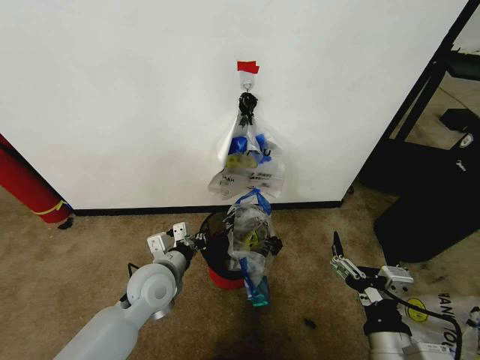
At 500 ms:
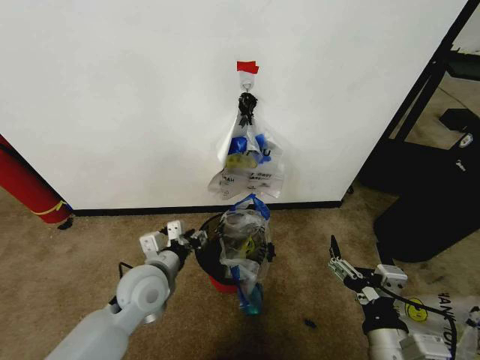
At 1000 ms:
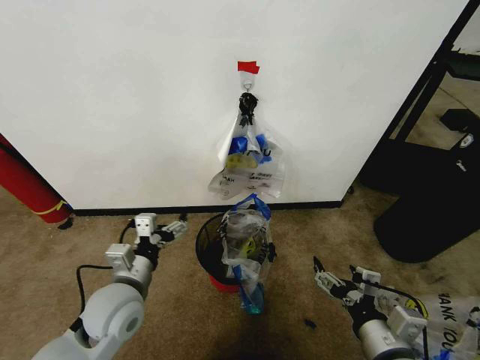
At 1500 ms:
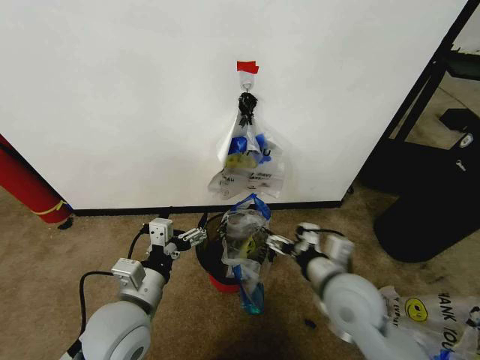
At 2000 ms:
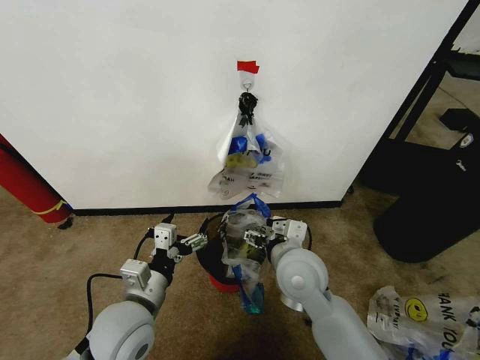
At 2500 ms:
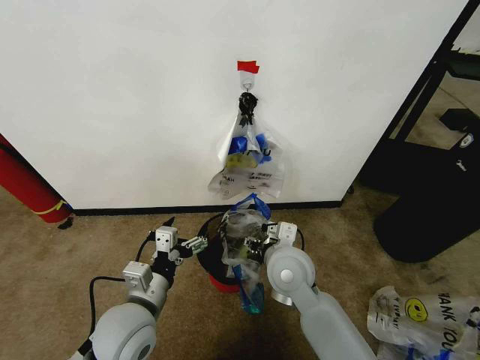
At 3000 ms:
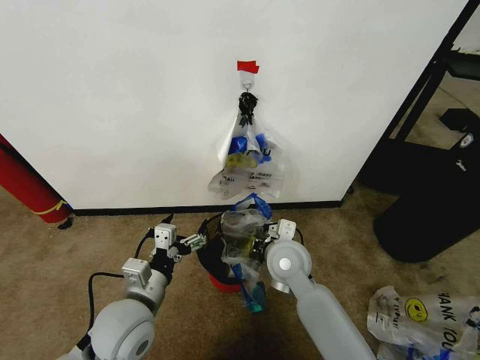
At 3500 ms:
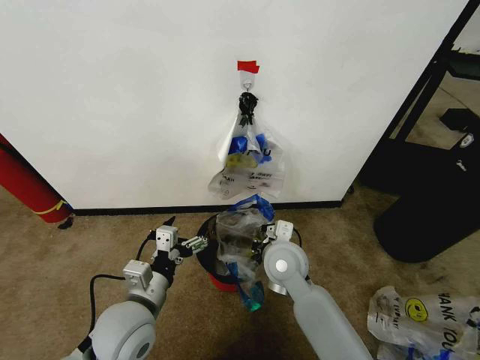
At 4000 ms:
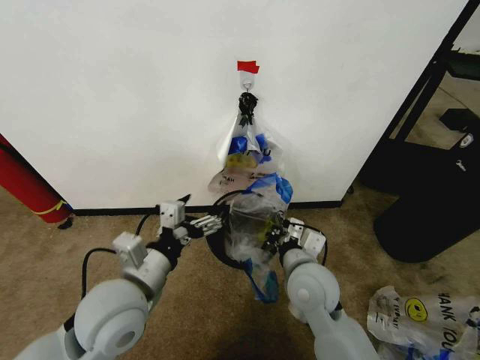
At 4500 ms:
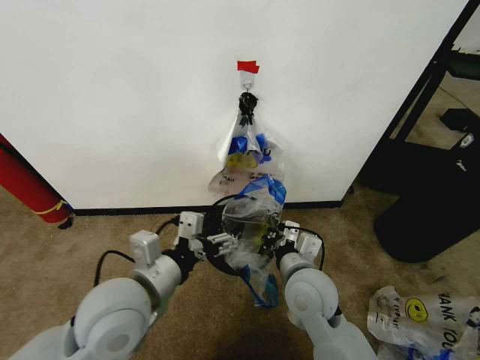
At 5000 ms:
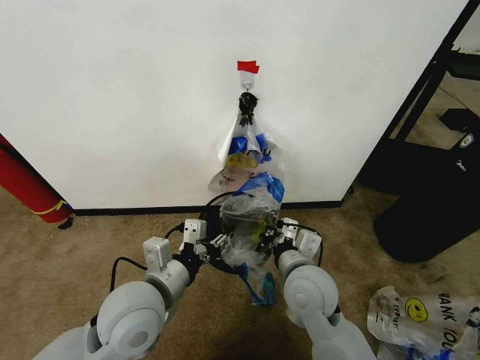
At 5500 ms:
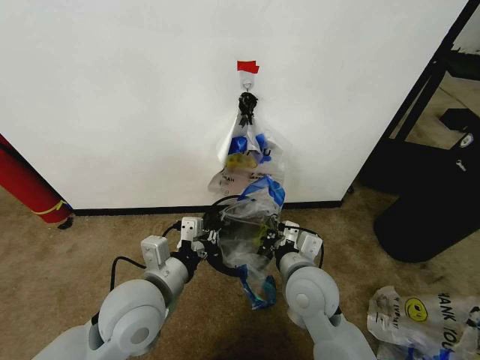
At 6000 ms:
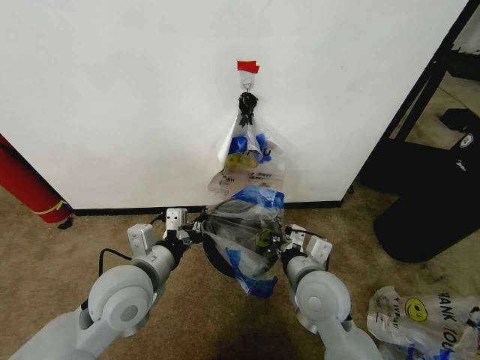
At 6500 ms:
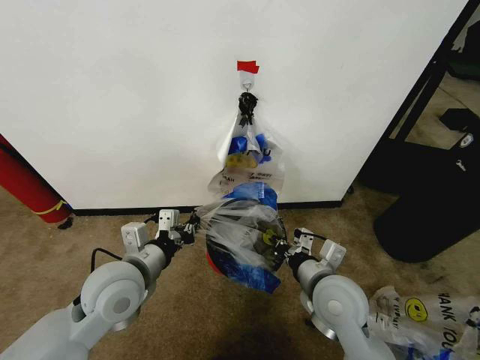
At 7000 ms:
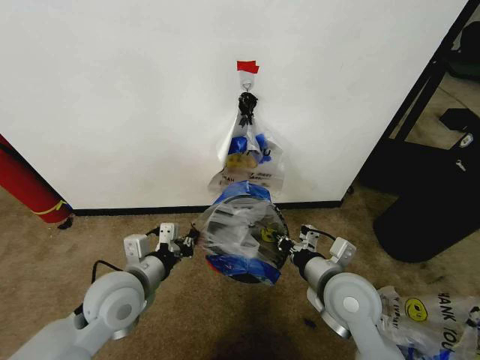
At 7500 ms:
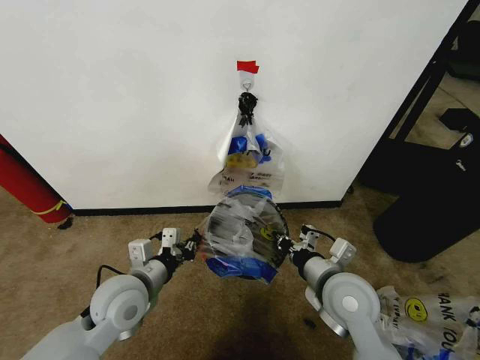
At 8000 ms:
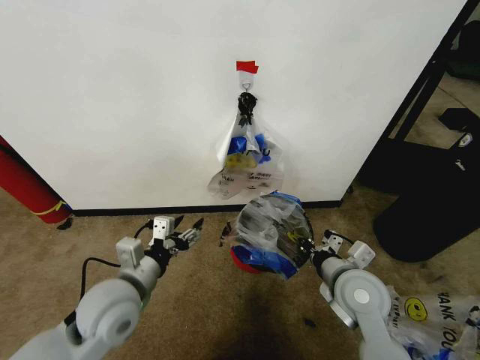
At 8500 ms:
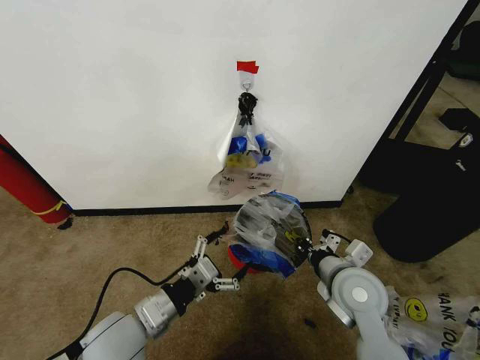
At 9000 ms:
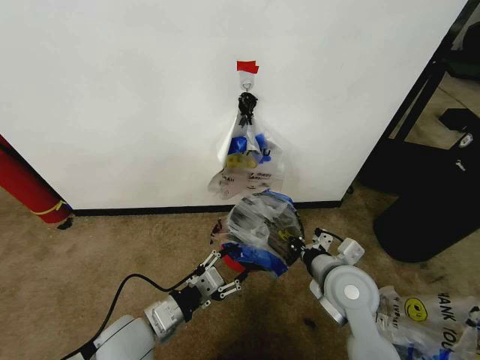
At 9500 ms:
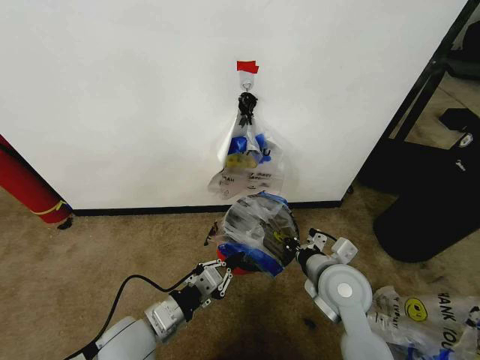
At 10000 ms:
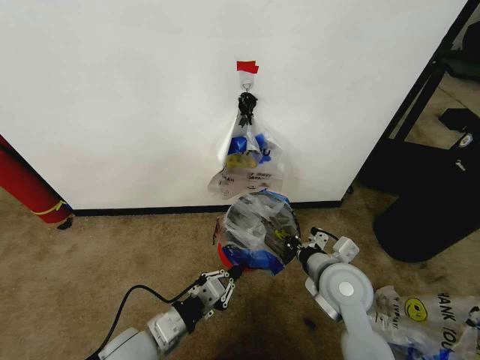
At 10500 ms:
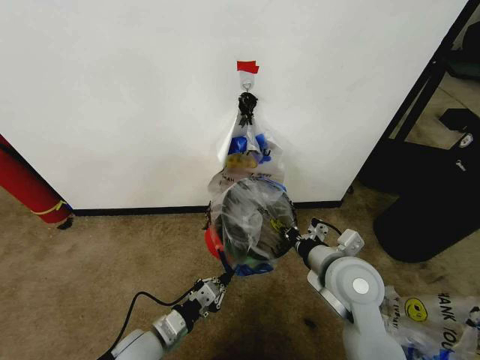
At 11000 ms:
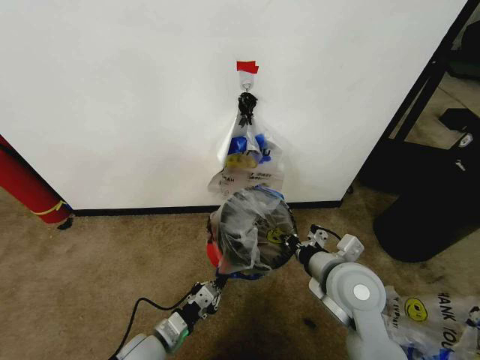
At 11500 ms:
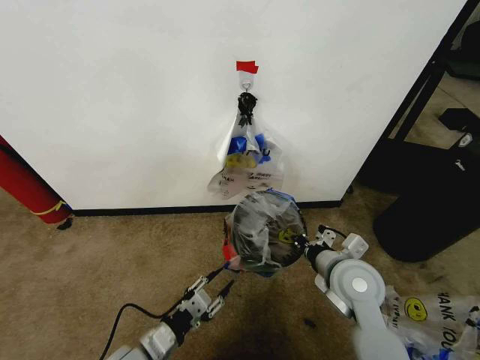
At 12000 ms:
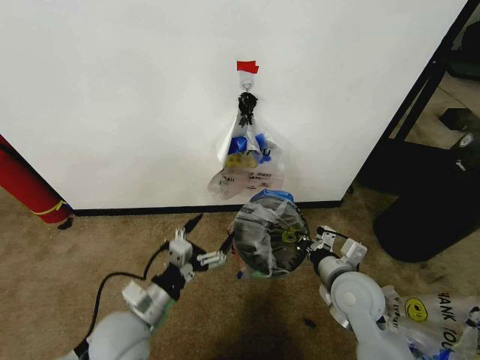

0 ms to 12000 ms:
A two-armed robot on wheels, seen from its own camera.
Task of the whole recording: Pick up the garbage bag from the wall and place it over the trash bin.
0 ms to 2000 ms: The left gripper heads backward, covering roughly 10 cm, and opens its fingers. The right gripper travels forward and to the left by approximately 25 cm.
2000 ms to 4000 ms: The left gripper shifts some 5 cm upward; the right gripper closes.
4000 ms to 6000 ms: The left gripper closes.
6000 ms to 8000 ms: The right gripper travels to the right by about 5 cm. The left gripper opens its fingers.
8000 ms to 10000 ms: The left gripper goes some 10 cm downward and backward, and closes up.
10000 ms to 12000 ms: The left gripper goes downward and returns, approximately 10 cm each way, and opens up.

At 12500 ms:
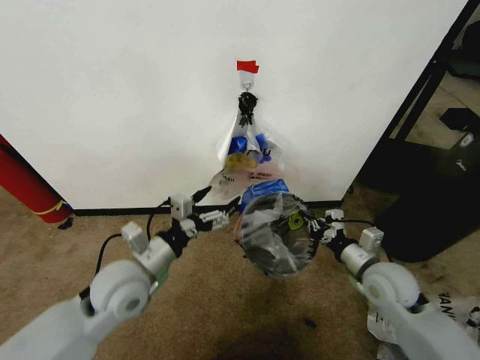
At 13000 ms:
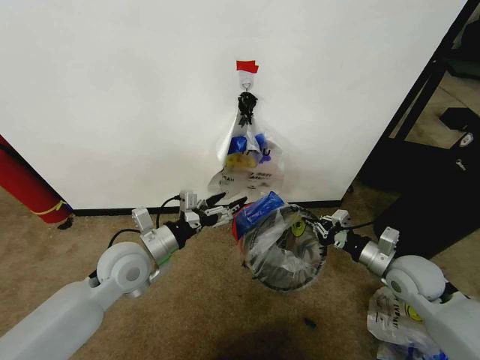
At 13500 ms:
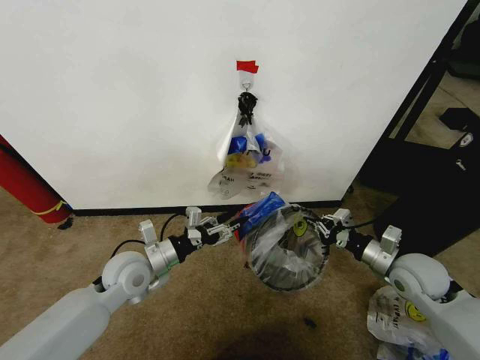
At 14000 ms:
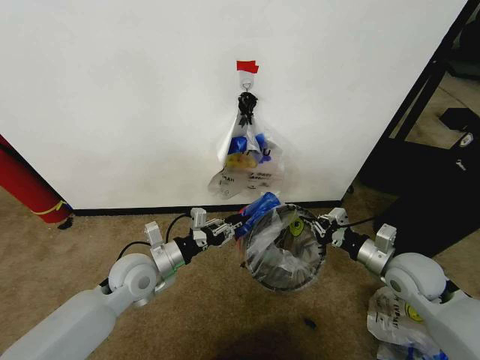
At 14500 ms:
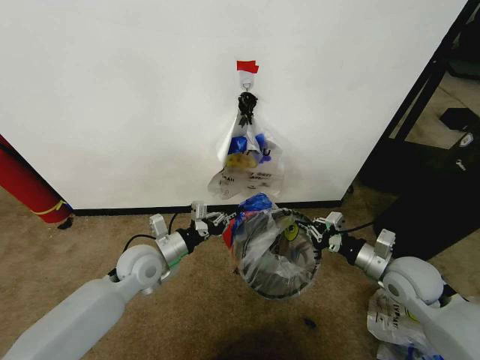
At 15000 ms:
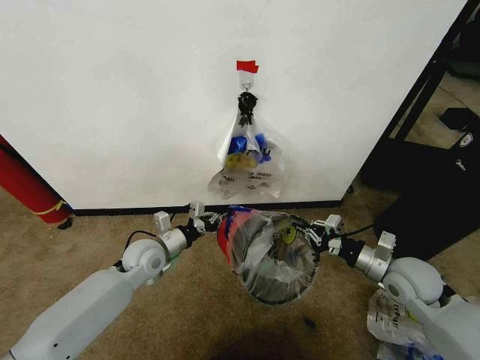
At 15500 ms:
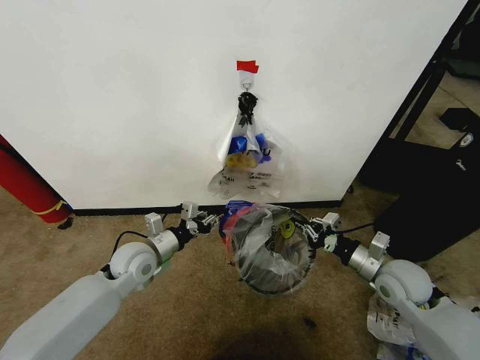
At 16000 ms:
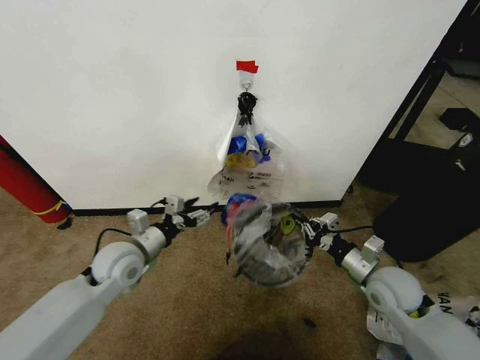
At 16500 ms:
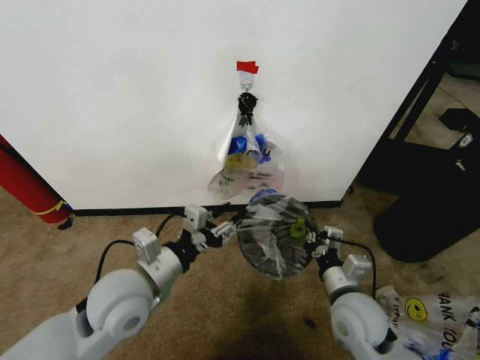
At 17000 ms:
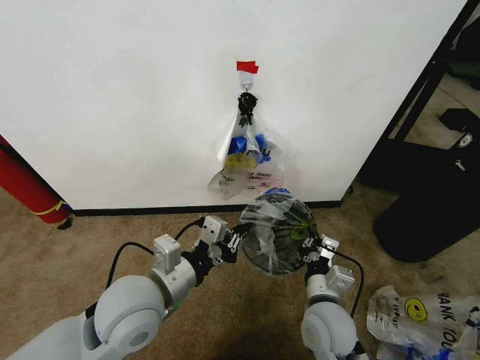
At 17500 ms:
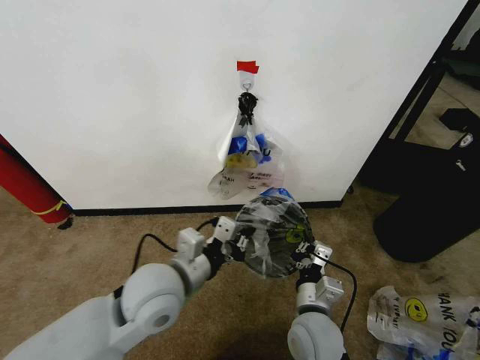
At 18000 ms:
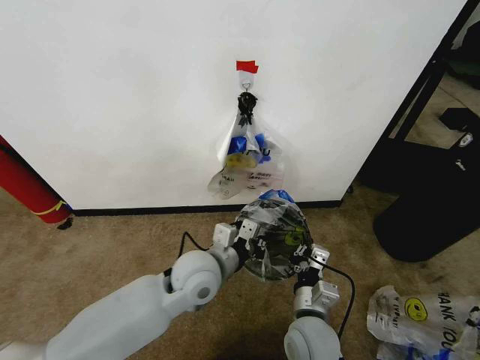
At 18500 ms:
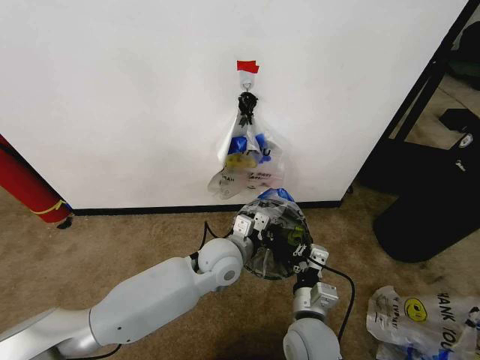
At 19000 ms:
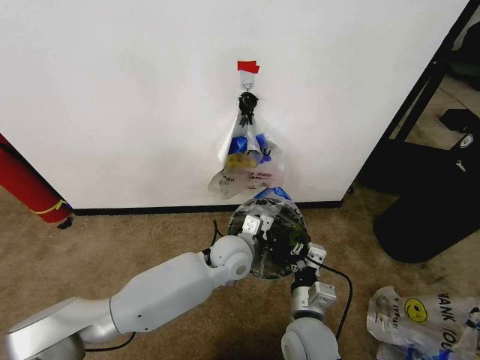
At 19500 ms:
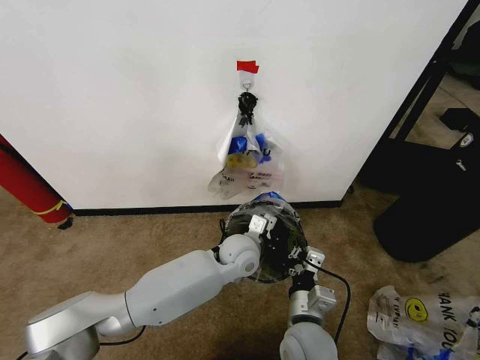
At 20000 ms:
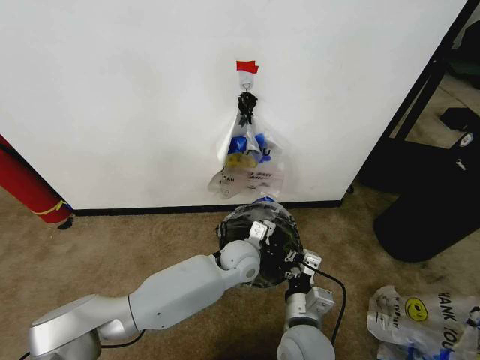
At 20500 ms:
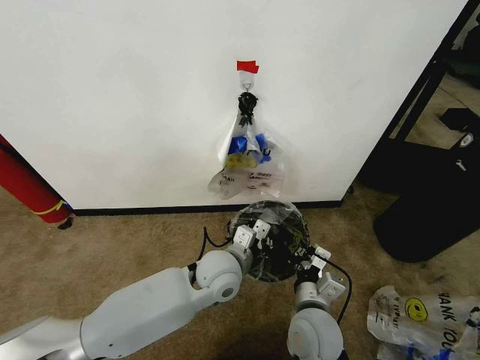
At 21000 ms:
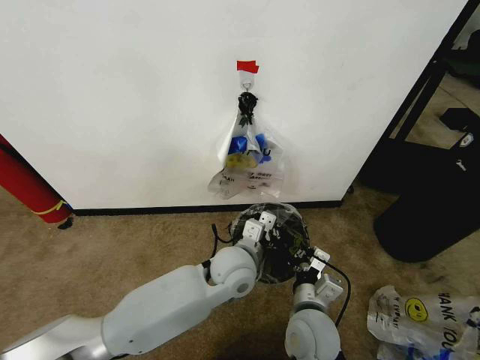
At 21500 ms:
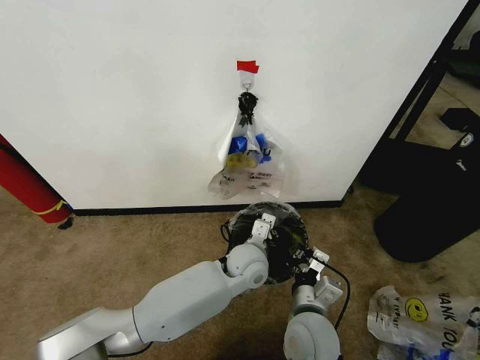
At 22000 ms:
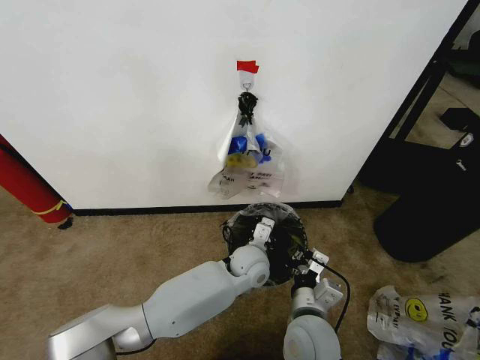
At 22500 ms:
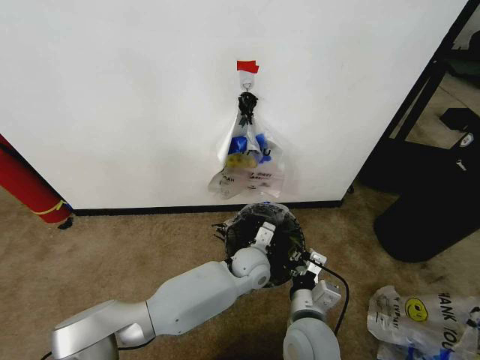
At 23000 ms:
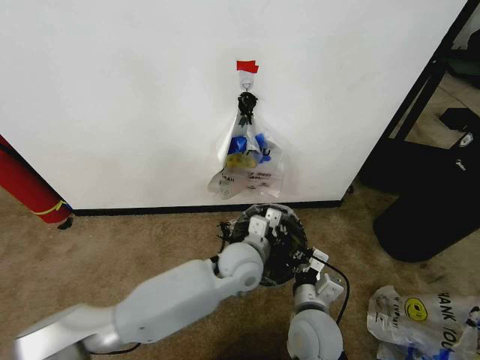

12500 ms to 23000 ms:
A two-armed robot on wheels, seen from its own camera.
Task of the whole recording: Pick up the garbage bag from the wall and place it over the trash bin.
12500 ms to 14500 ms: The left gripper heads forward and downward, covering roughly 10 cm, and closes up.
14500 ms to 16500 ms: The left gripper goes some 15 cm backward and upward, and opens its fingers, while the right gripper is displaced to the left and backward by about 15 cm.
16500 ms to 19000 ms: The left gripper goes some 25 cm to the right, forward and downward, and closes, while the right gripper goes about 10 cm to the left.
21000 ms to 23000 ms: The left gripper reaches about 10 cm downward, then returns.

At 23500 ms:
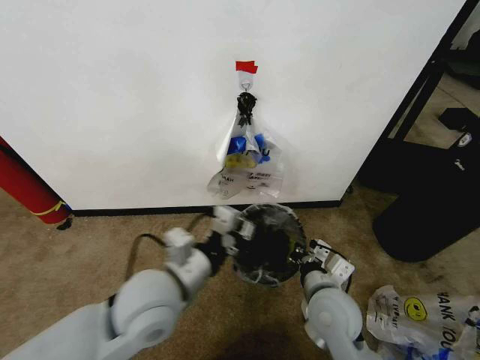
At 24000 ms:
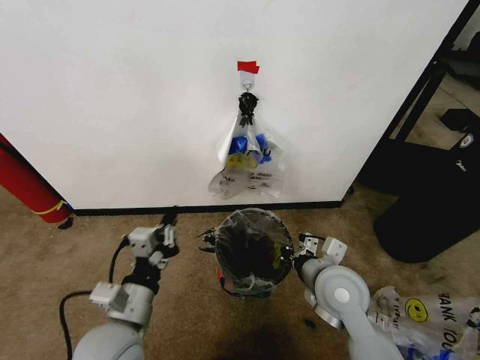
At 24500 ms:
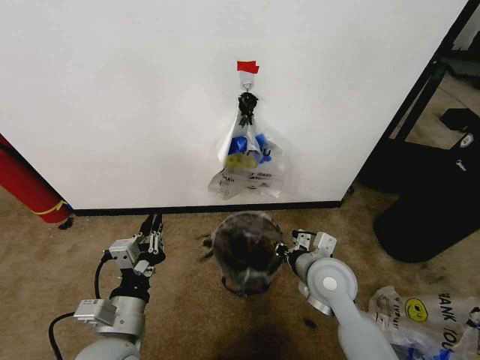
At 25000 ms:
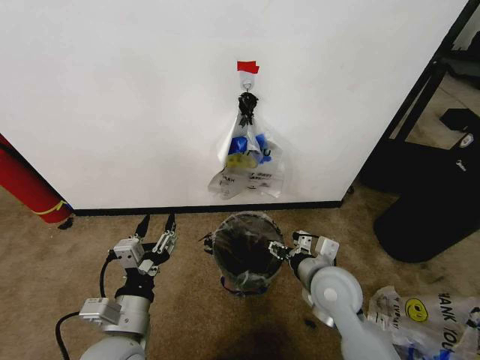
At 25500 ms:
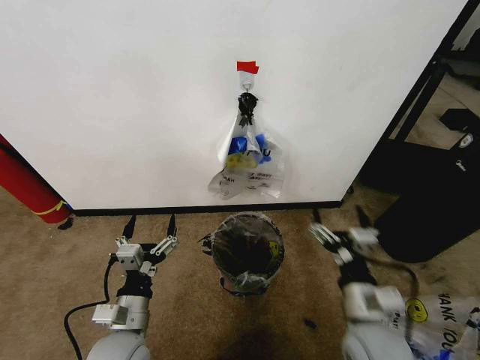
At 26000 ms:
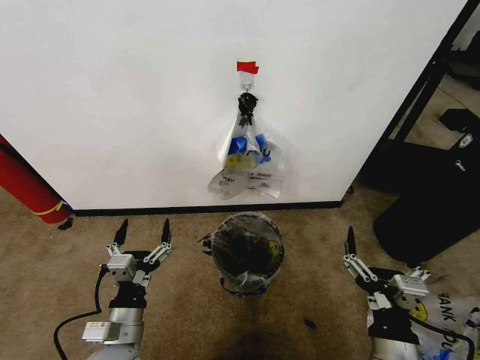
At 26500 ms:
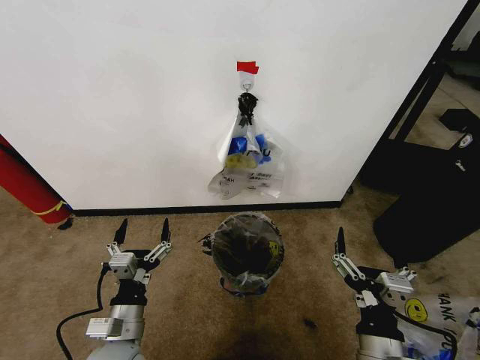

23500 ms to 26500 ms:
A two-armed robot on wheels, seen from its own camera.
Task of the whole recording: Pick up the garbage bag from the wall and place it over the trash bin.
23500 ms to 25000 ms: The right gripper opens its fingers, while the left gripper travels downward, backward and to the left by roughly 15 cm, and opens its fingers.
25000 ms to 26500 ms: The left gripper travels downward by approximately 5 cm; the right gripper is displaced backward by some 20 cm.
